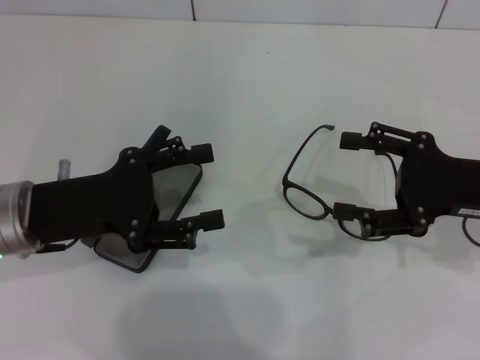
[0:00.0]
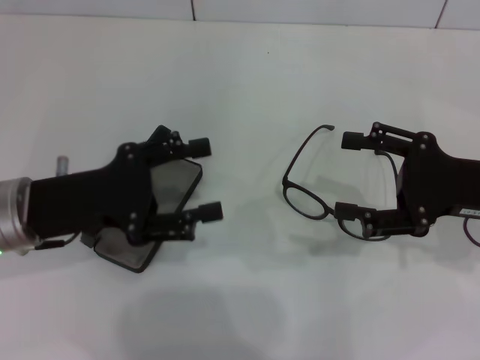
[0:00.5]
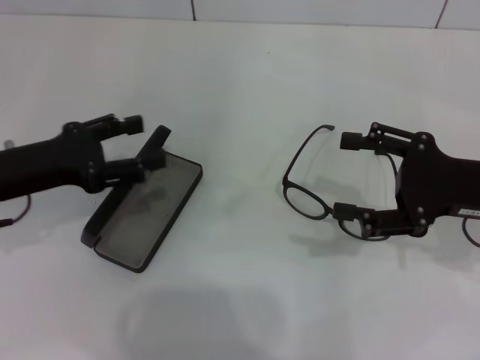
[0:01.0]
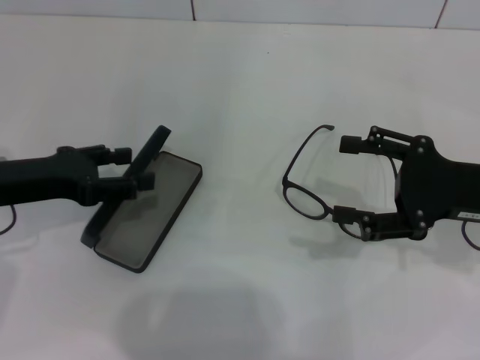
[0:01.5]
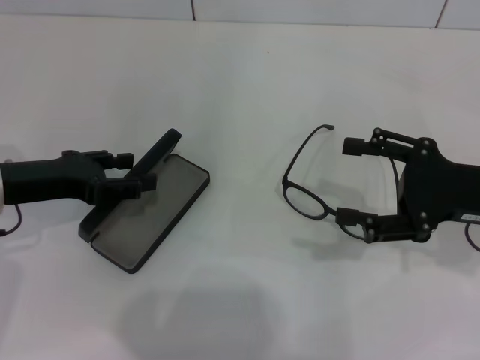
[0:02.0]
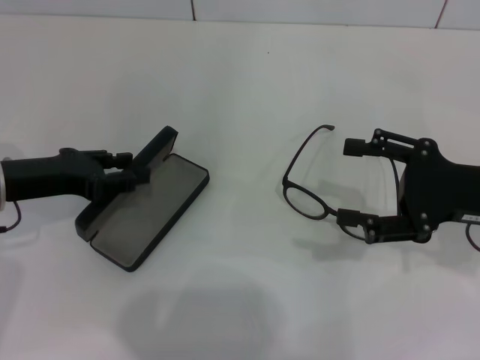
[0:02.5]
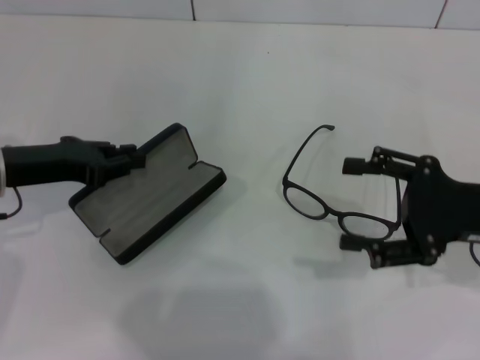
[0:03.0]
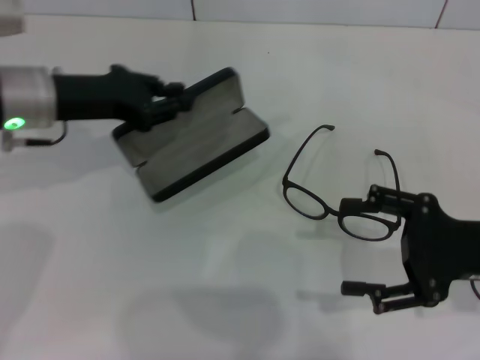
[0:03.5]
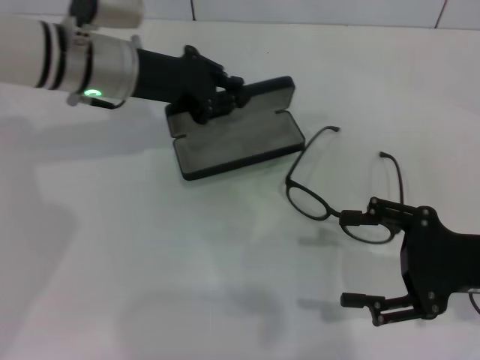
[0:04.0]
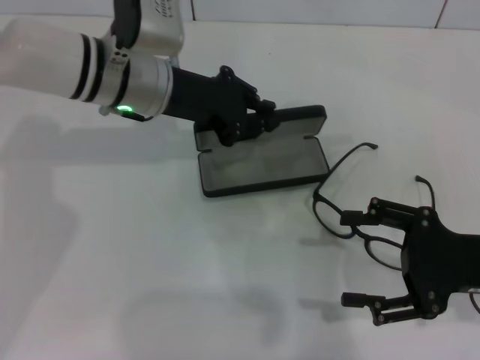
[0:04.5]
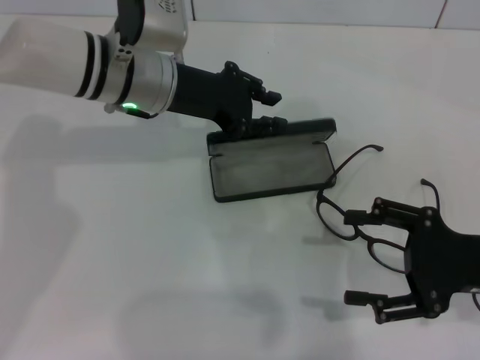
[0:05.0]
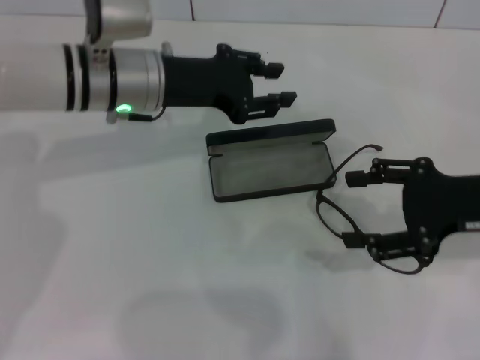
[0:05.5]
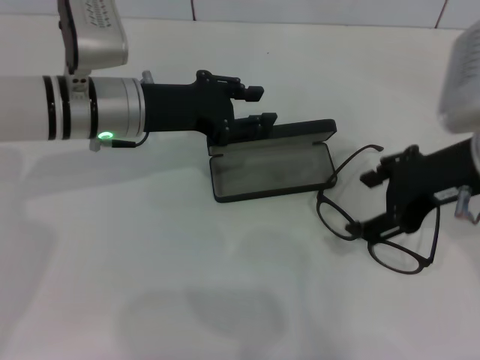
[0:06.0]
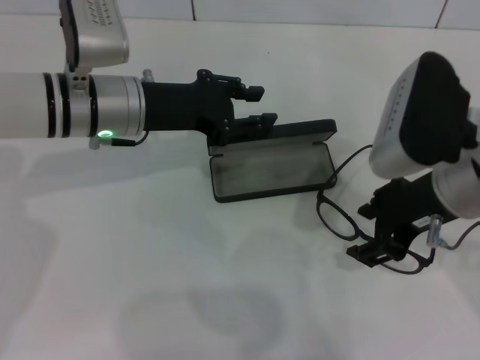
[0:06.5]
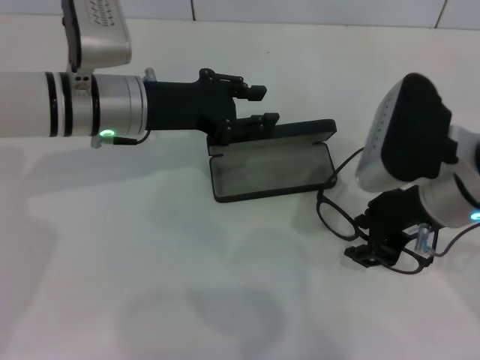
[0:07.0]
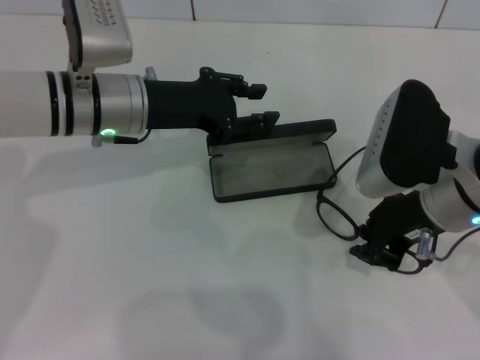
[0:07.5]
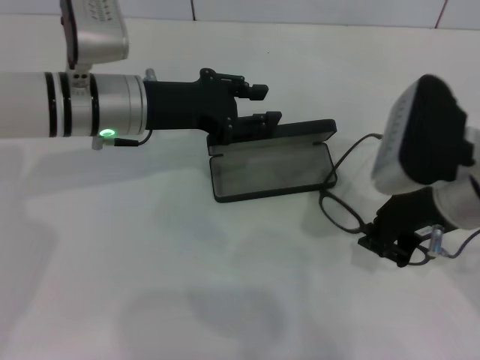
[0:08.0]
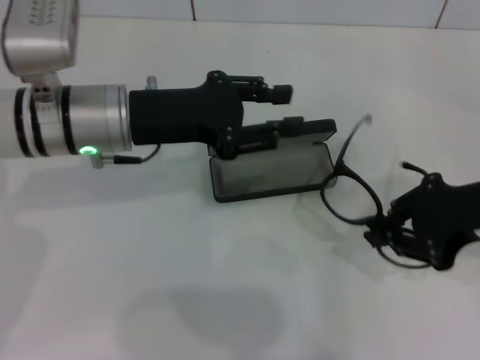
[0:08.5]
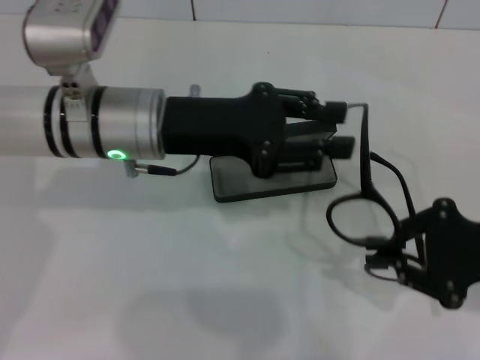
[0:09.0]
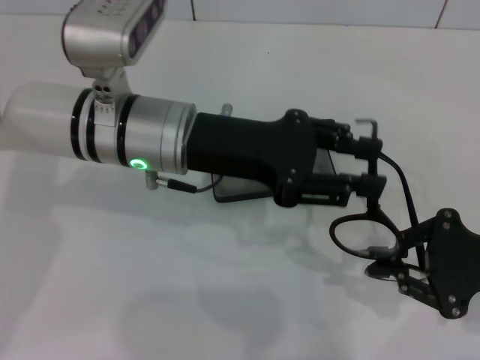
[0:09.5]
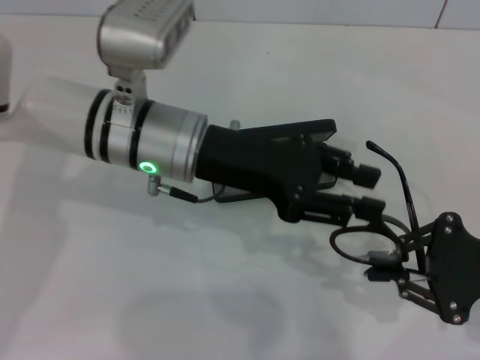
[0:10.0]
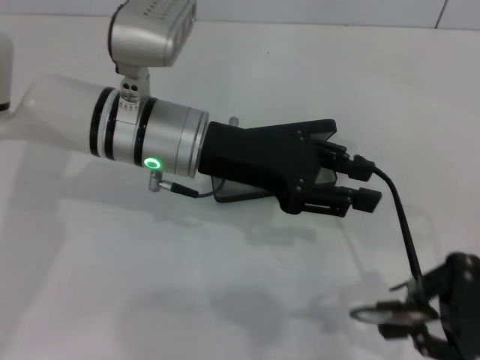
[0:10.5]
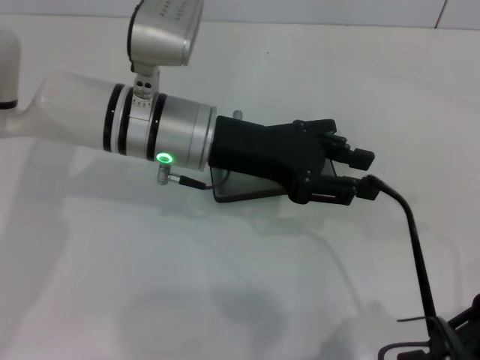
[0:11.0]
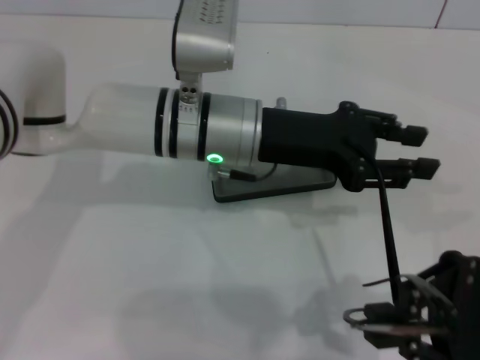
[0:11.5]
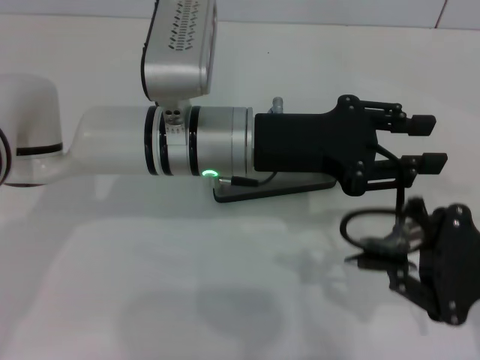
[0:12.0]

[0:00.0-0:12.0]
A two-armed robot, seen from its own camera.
Step, 0:00.0 to 0:02.5: Grab the glasses case with your left hand.
Step, 0:03.0 to 0:05.0: Place the glasses case in the center of the table with your left hand.
Step, 0:05.5 to 0:07.5: Grab the eyeglass frame with your right hand.
0:00.0 to 0:02.0: The left gripper moves approximately 5 cm.
0:02.0 to 0:04.0: The left gripper heads to the right, forward and upward, covering approximately 15 cm, and closes its fingers.
0:04.0 to 0:06.0: The right gripper moves upward, to the left and forward, about 15 cm; the left gripper opens its fingers.
0:06.0 to 0:08.0: The right gripper closes up.
0:08.0 to 0:10.0: The right gripper travels to the right, backward and downward by approximately 15 cm, while the left gripper heads to the right, covering approximately 5 cm.

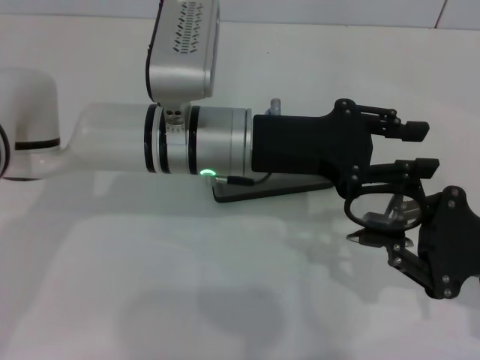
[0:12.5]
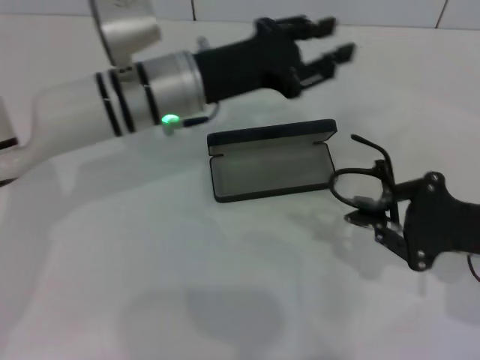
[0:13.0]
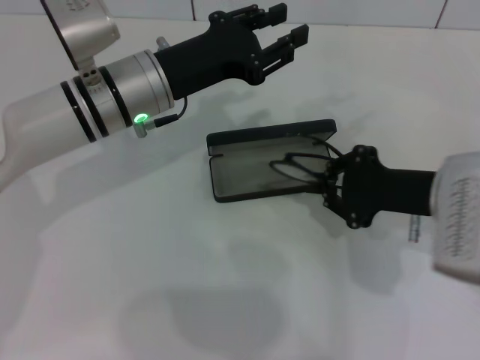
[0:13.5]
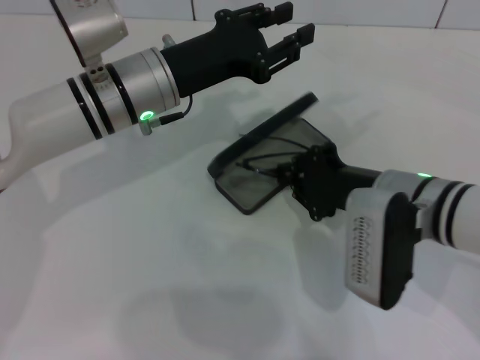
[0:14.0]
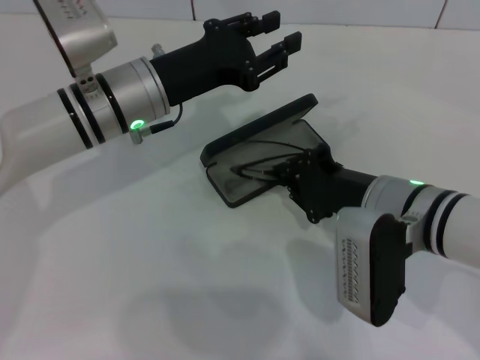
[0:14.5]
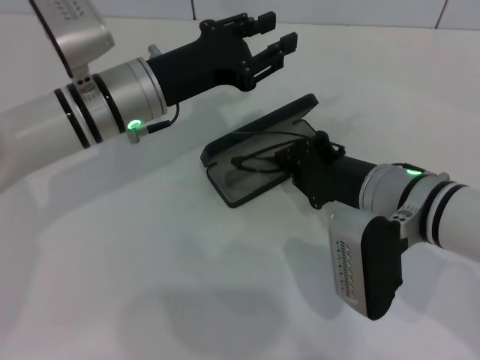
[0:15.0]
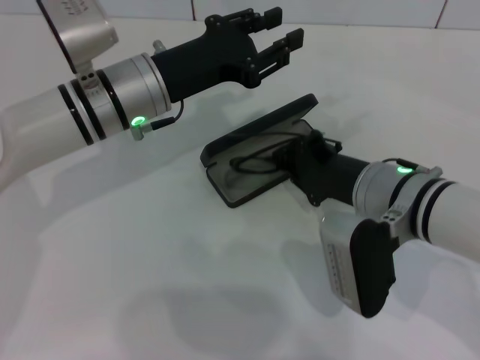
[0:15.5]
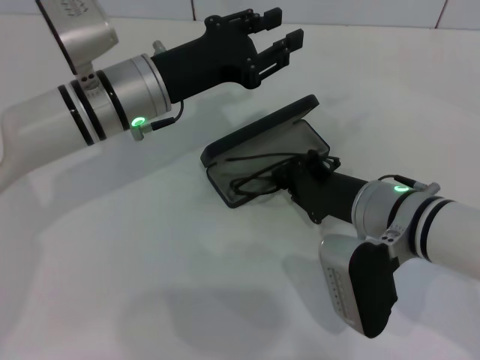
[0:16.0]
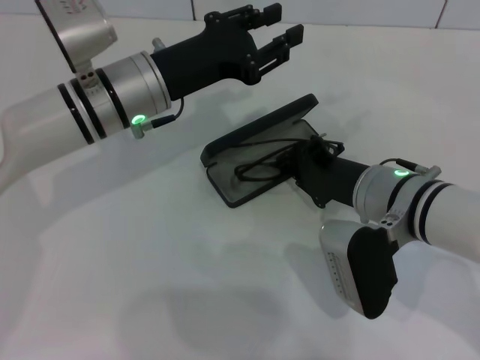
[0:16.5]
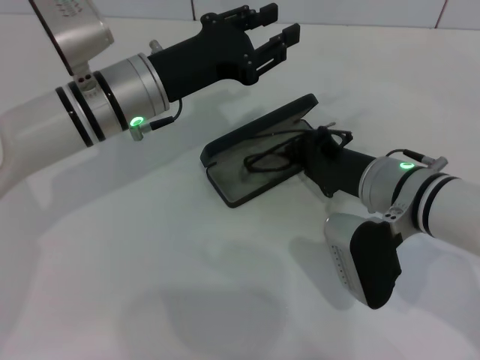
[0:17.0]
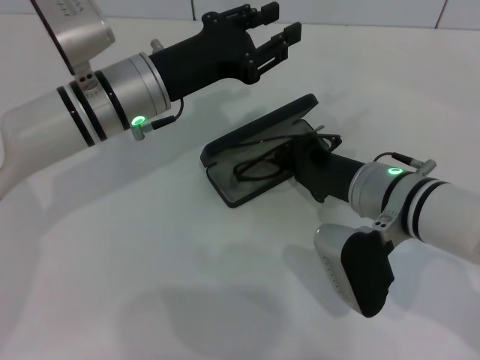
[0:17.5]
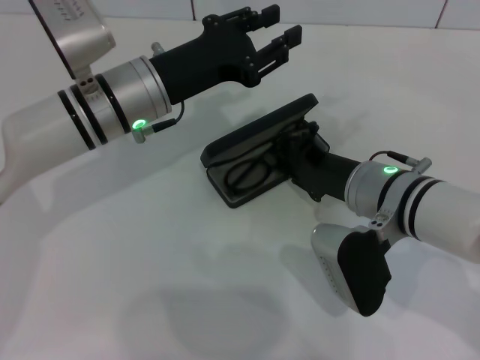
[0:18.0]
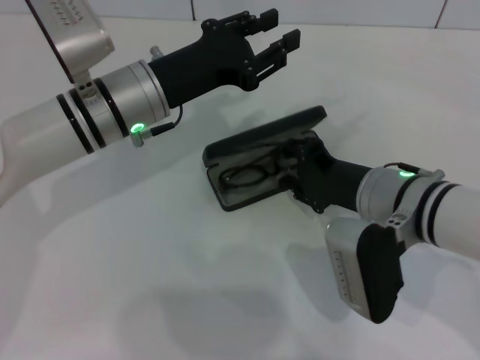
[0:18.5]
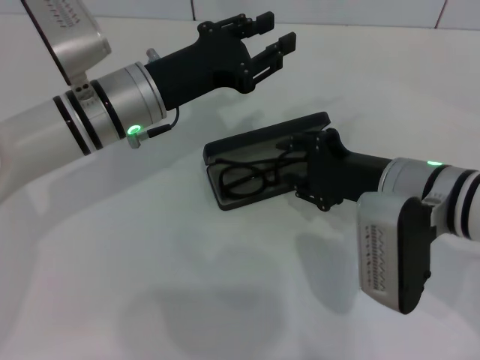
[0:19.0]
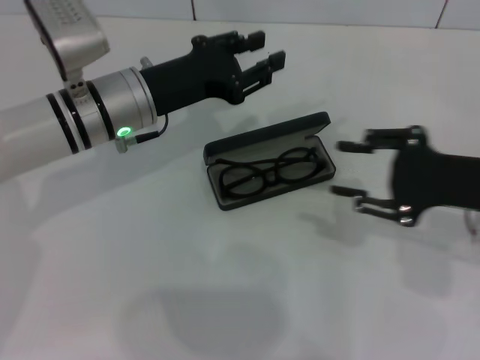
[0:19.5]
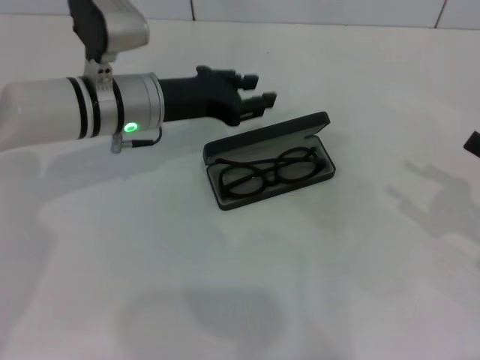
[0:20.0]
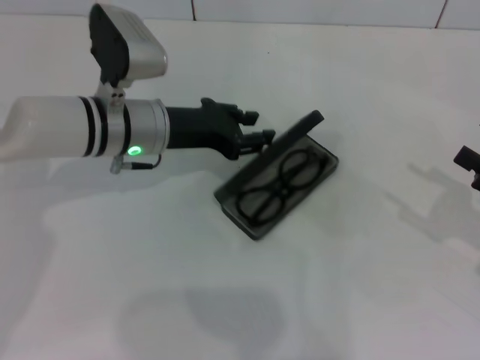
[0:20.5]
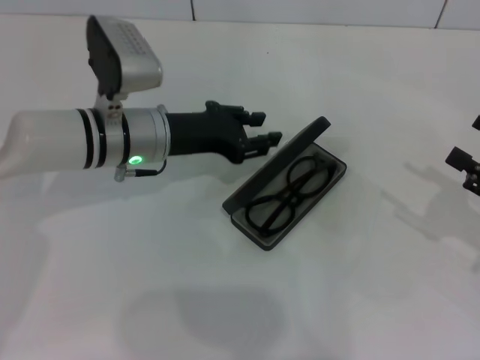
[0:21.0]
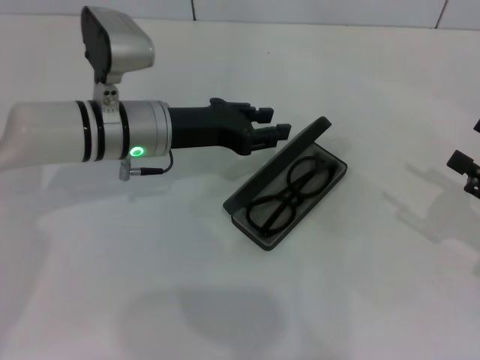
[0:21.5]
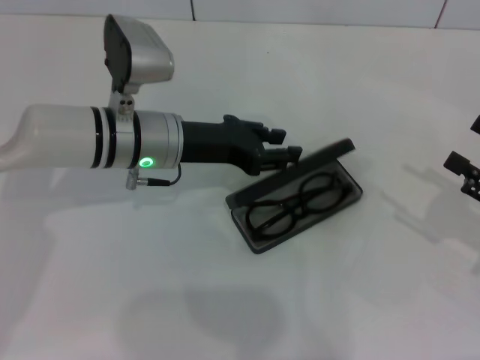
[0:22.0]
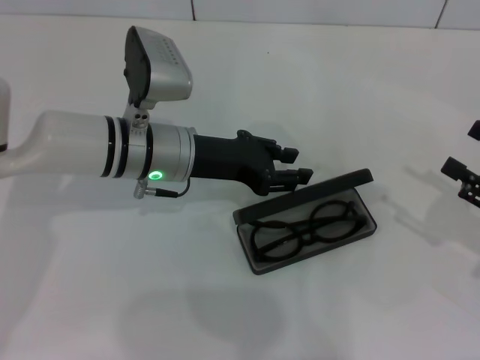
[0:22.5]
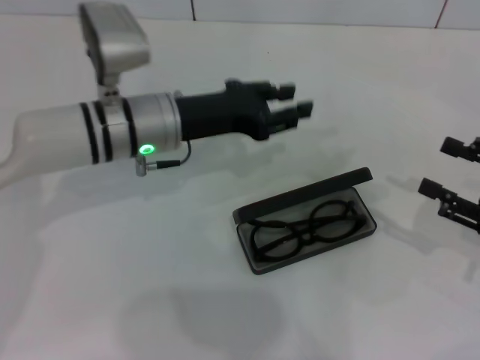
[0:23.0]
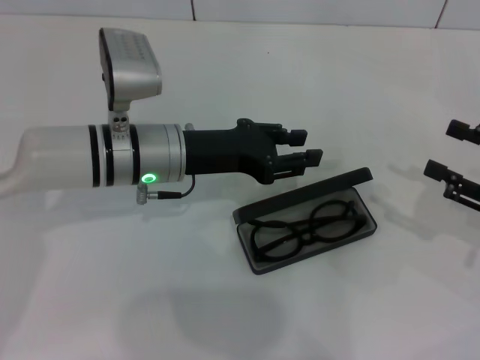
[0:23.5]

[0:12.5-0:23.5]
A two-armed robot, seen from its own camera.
Step, 0:13.0 to 0:18.5: Put the glasses into the case with your right hand.
0:12.5 to 0:14.5: The left gripper heads to the left, covering approximately 10 cm; the right gripper travels to the left by roughly 15 cm.
0:14.5 to 0:16.0: There are only small adjustments of the grippers.
0:16.0 to 0:18.0: The grippers make only small movements.
0:18.0 to 0:20.0: The right gripper is displaced to the right by some 25 cm, and opens up.
0:20.0 to 0:23.5: The grippers move only a little.

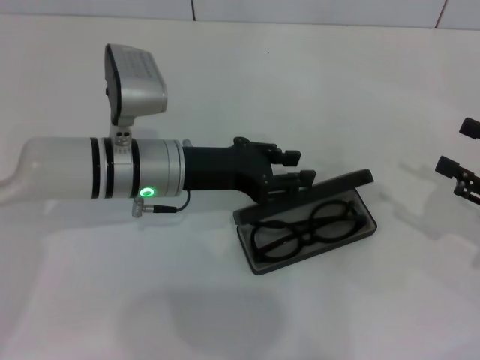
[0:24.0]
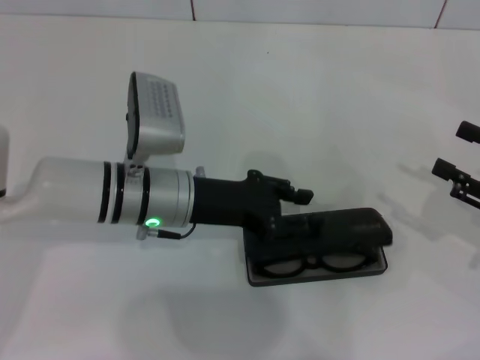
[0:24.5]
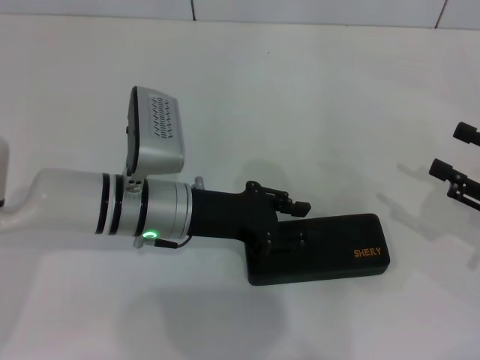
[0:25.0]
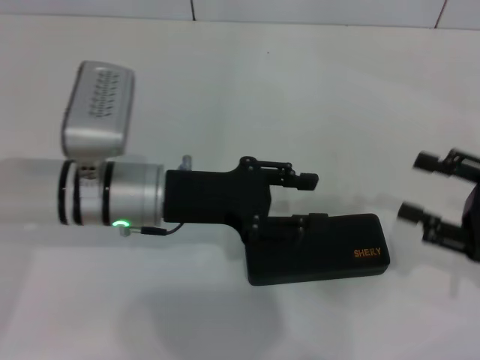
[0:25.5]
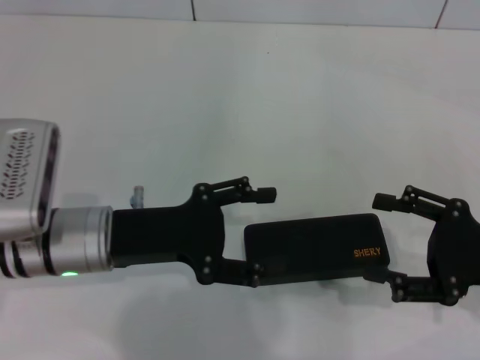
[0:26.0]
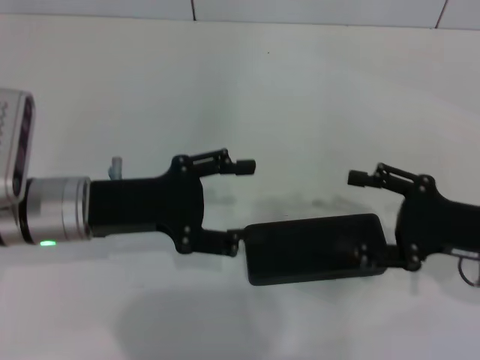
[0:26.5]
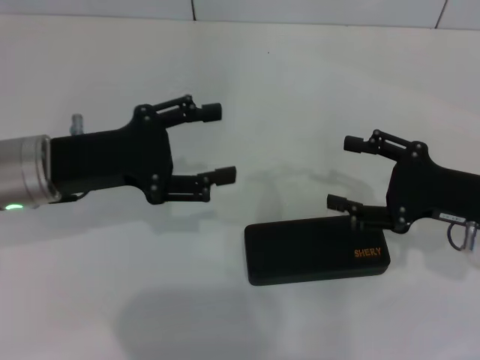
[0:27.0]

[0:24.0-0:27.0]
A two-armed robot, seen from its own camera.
0:25.5 to 0:27.0: The left gripper is displaced to the left by roughly 10 cm, and opens its fingers. Meanwhile the right gripper moves to the left, approximately 5 cm.
